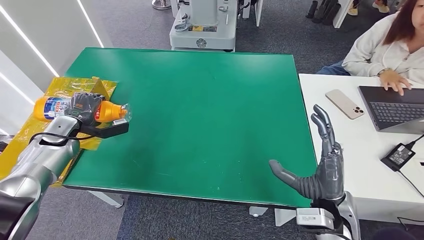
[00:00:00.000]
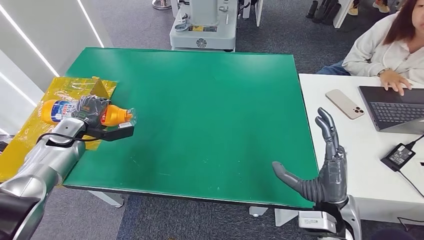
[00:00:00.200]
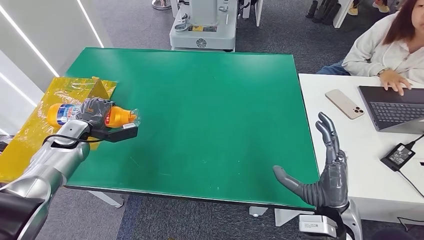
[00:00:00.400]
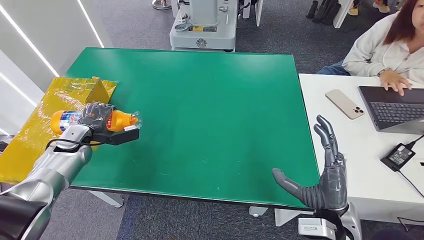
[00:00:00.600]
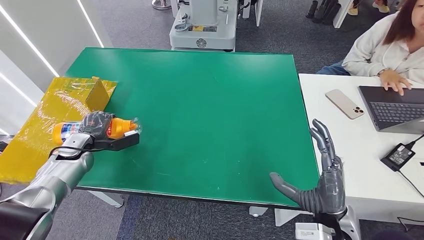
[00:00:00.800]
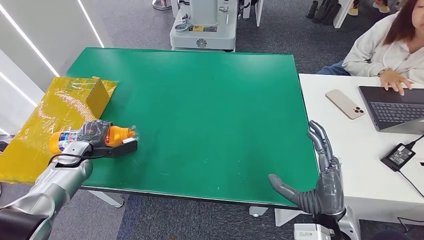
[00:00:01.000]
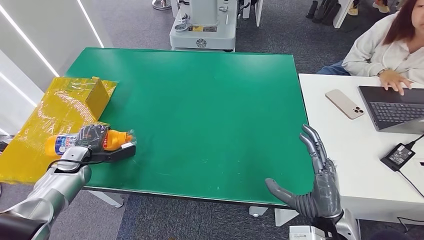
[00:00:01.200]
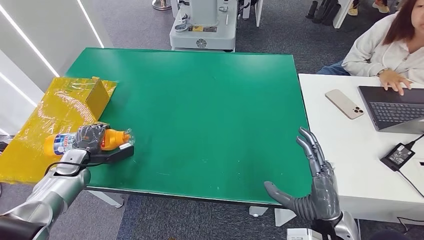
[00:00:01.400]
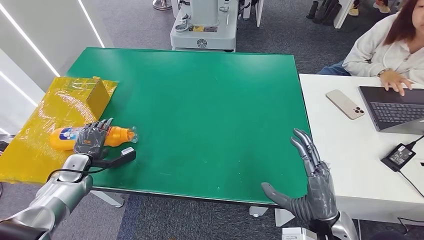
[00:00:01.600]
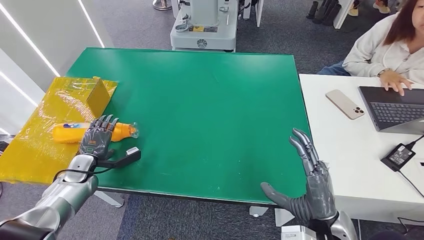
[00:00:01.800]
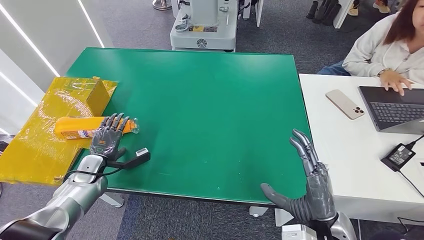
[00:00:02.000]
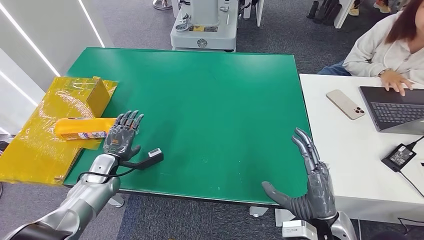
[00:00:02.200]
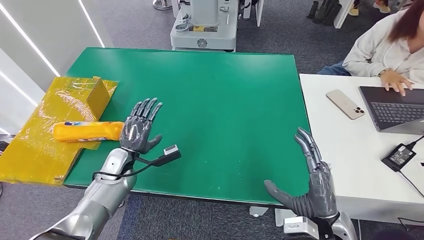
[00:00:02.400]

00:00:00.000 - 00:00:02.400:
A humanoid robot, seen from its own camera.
Step, 00:00:00.000 - 00:00:02.400: Turn the bottle to the front side.
00:00:00.000 - 00:00:01.200: The left hand moves downward and backward, some 10 cm.
00:00:01.200 - 00:00:02.400: The left hand moves to the right, approximately 15 cm.
